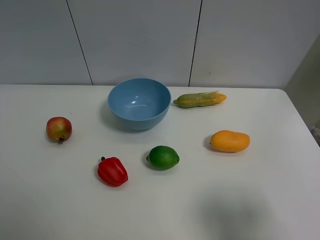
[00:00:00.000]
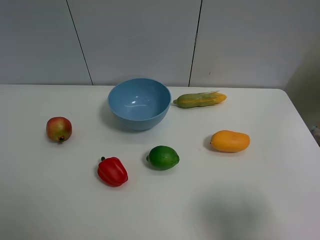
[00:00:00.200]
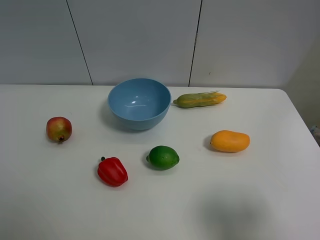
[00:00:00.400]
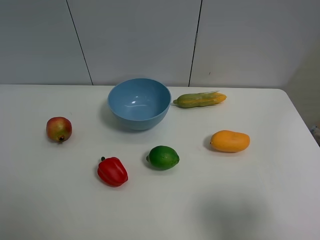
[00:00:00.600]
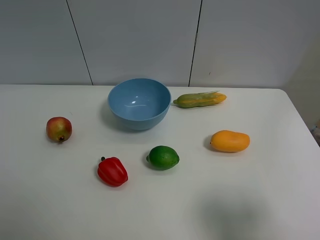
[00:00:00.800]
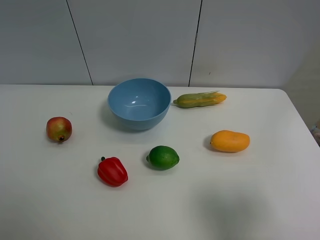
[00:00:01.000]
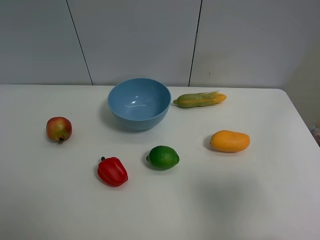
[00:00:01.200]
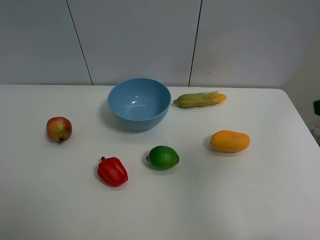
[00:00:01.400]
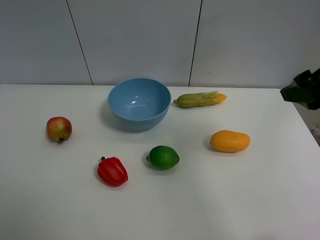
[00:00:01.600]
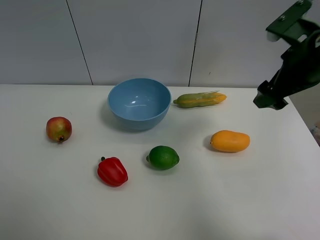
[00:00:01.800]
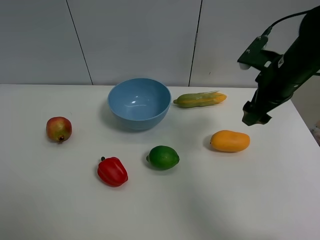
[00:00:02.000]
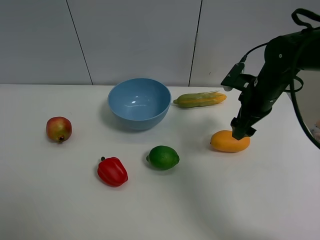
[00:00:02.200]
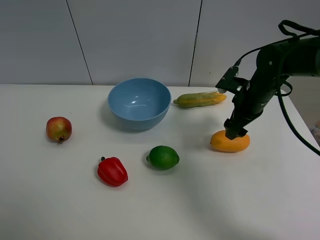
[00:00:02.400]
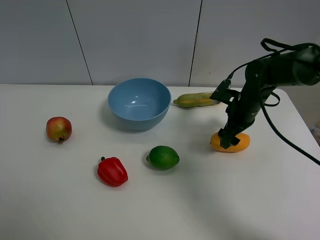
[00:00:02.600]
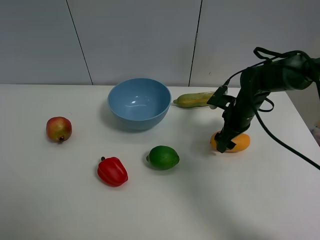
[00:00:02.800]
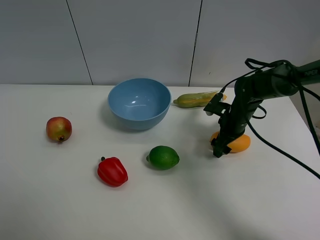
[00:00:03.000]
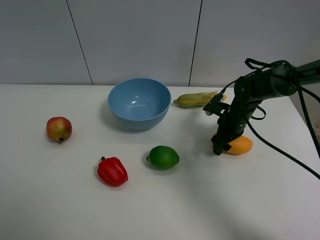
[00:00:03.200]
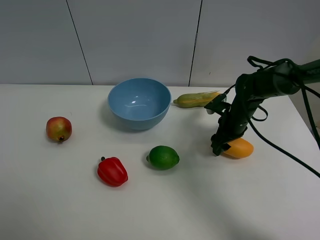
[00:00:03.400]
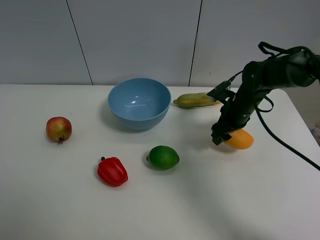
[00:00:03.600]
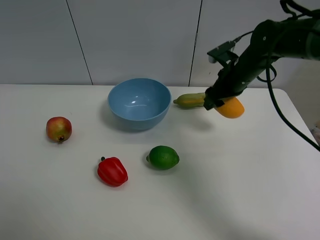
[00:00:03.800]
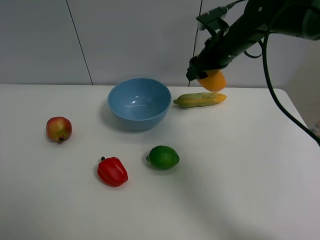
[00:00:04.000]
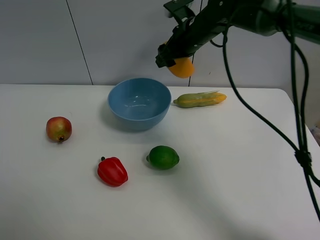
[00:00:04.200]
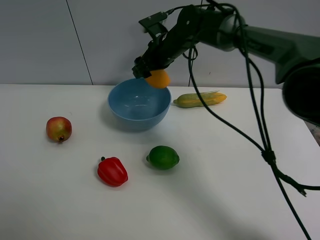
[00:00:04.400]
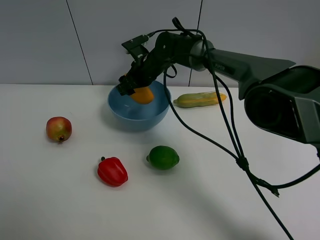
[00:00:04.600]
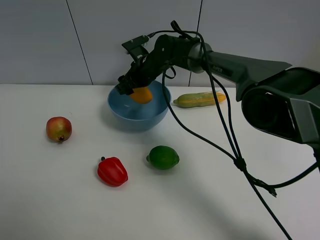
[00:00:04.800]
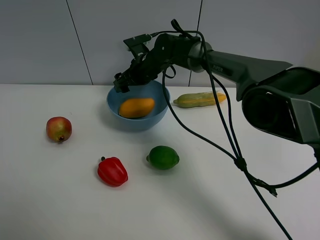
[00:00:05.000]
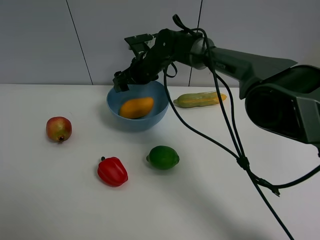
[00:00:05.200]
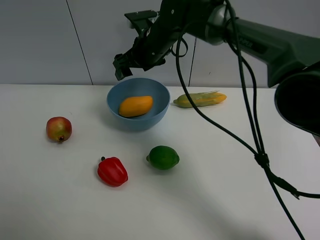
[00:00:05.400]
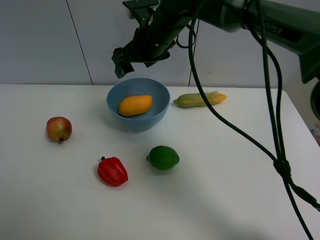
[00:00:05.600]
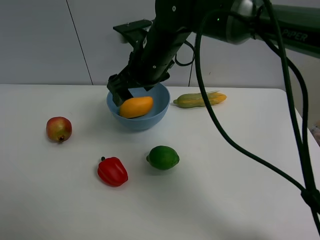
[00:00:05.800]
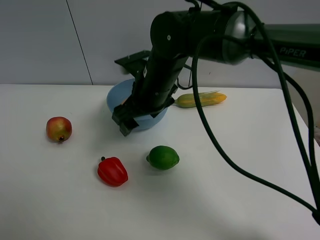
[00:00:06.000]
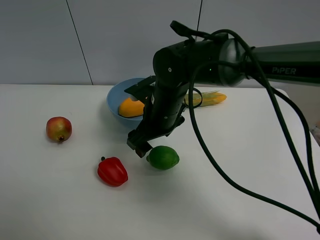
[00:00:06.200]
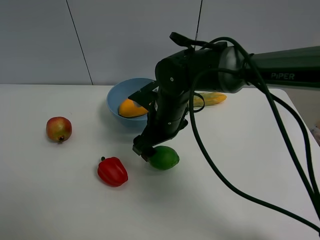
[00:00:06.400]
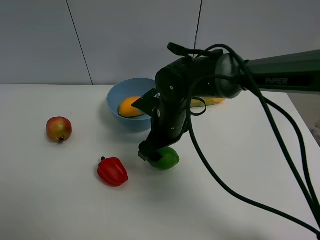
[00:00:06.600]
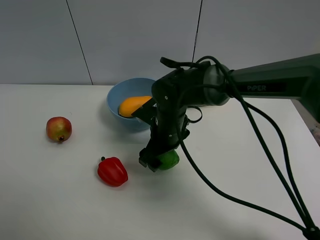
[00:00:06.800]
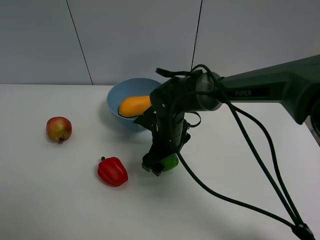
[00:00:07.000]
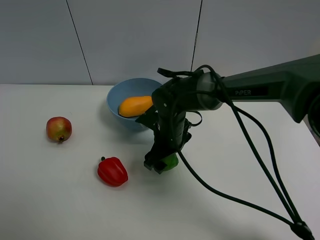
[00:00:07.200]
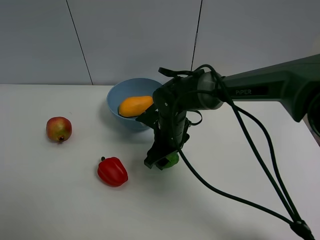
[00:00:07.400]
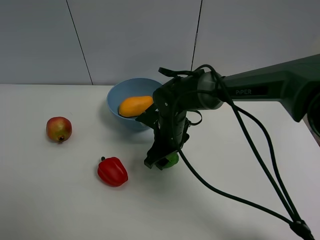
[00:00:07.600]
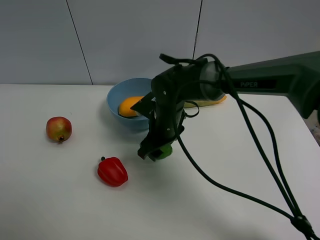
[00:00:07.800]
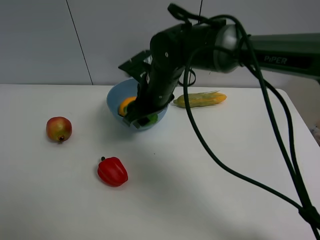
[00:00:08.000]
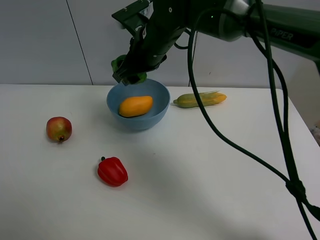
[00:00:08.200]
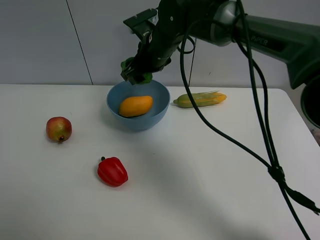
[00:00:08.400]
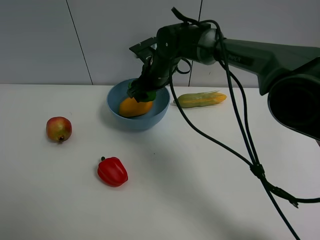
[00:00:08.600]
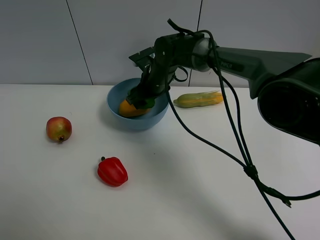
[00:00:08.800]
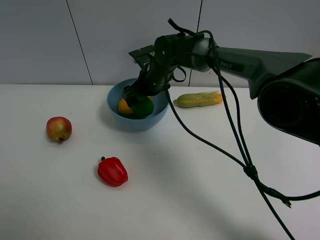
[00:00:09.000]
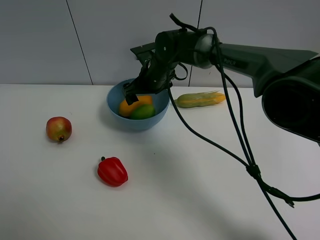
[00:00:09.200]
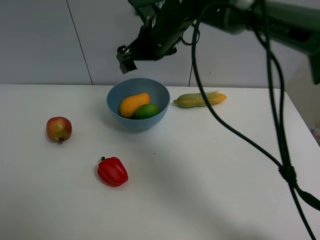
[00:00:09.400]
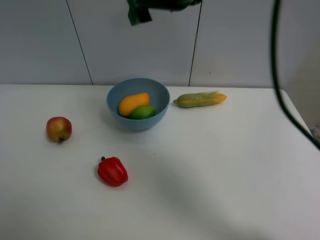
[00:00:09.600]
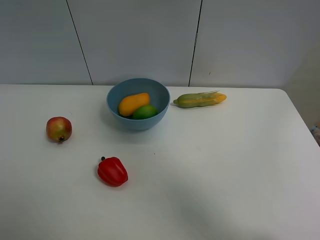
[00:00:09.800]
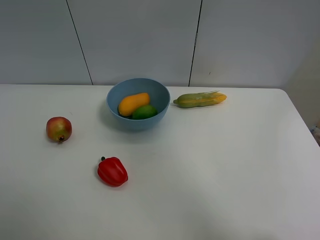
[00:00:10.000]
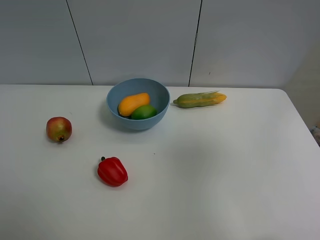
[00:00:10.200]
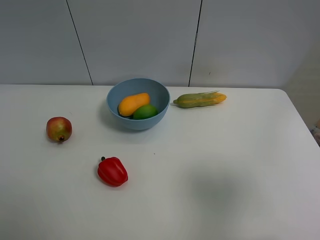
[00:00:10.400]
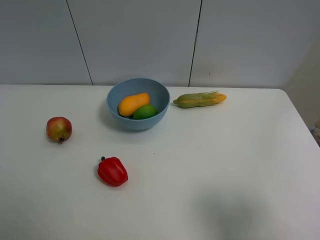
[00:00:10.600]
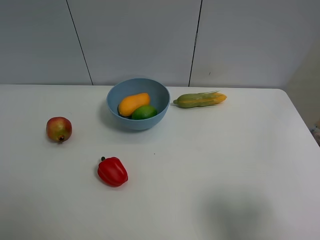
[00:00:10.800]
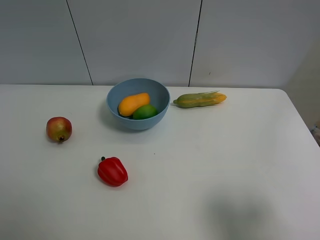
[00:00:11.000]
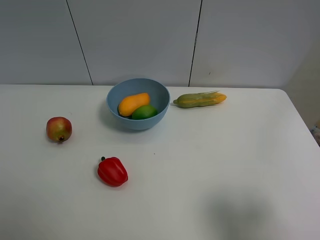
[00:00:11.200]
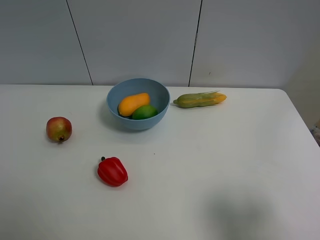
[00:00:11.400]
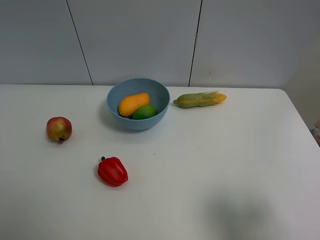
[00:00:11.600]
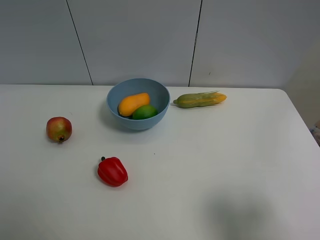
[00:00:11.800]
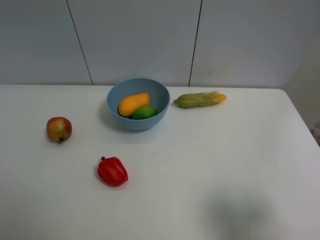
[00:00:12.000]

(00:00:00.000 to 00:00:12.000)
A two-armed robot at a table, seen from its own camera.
Task of the whole recording: Put the three fruits on the table into a bowl.
Step, 00:00:00.000 - 00:00:03.200: Grasp the mango with right gripper.
Step, 00:00:03.400 - 00:00:04.800: Place the mango in the blue bowl with right gripper.
Step, 00:00:05.000 - 00:00:07.400: Grasp the green lemon with right gripper.
Step, 00:00:07.600 - 00:00:09.200: Place the green lemon in the blue bowl with right gripper.
00:00:00.000 - 00:00:01.600: The right gripper is displaced forward and upward by some 20 cm.
00:00:01.600 - 00:00:03.000: The right gripper shifts approximately 30 cm downward and forward.
00:00:03.000 - 00:00:04.400: The right gripper shifts about 25 cm to the left, upward and forward, and closes up.
00:00:04.400 - 00:00:06.000: The right gripper travels backward by approximately 15 cm, and opens.
00:00:06.000 - 00:00:07.600: The right gripper is displaced downward by about 10 cm, and closes.
00:00:07.600 - 00:00:09.000: The right gripper heads forward and upward, covering approximately 15 cm, and opens.
00:00:09.000 - 00:00:10.400: The right gripper goes approximately 50 cm backward, to the right and upward.
00:00:10.400 - 00:00:12.000: The right gripper travels downward by about 10 cm.

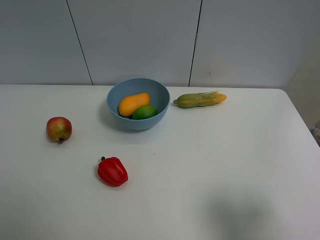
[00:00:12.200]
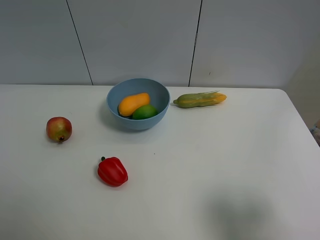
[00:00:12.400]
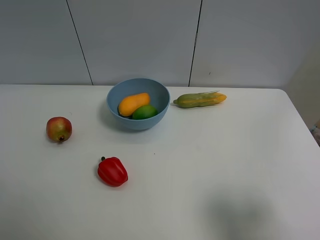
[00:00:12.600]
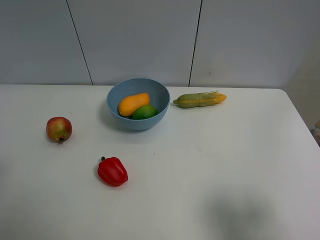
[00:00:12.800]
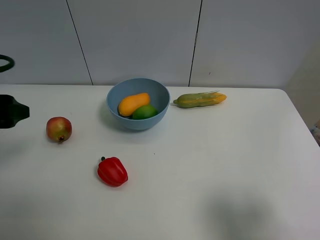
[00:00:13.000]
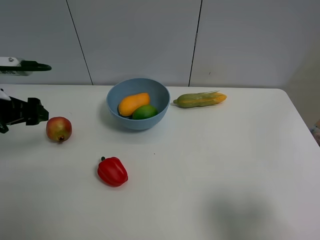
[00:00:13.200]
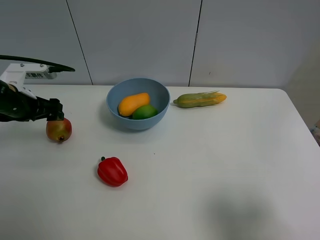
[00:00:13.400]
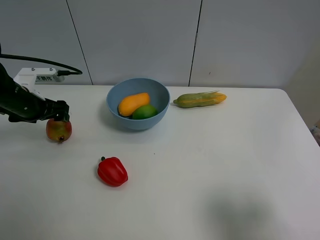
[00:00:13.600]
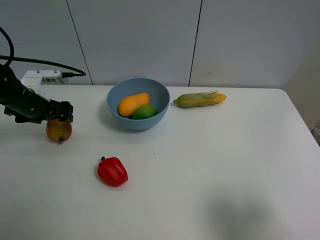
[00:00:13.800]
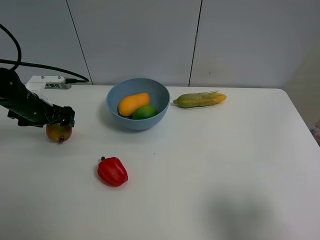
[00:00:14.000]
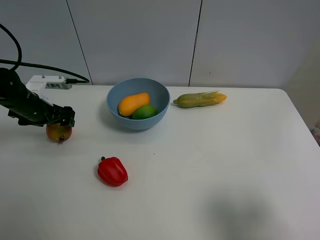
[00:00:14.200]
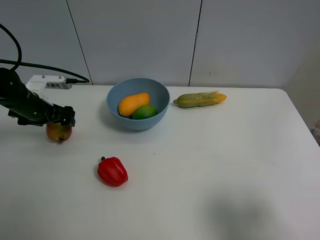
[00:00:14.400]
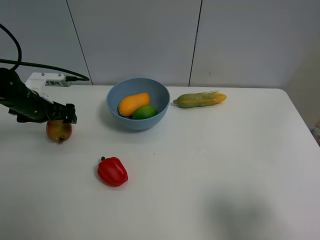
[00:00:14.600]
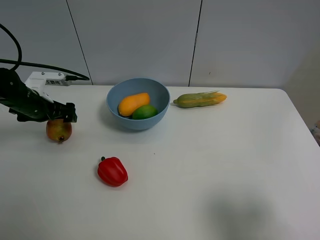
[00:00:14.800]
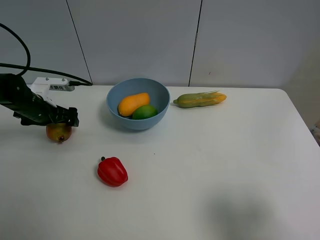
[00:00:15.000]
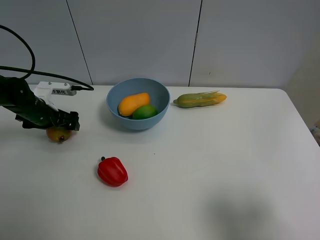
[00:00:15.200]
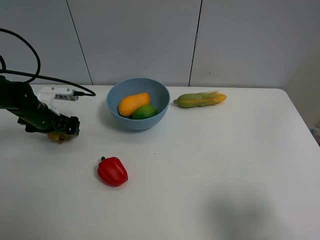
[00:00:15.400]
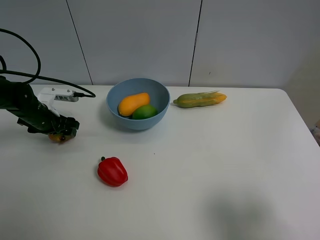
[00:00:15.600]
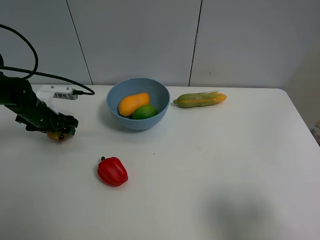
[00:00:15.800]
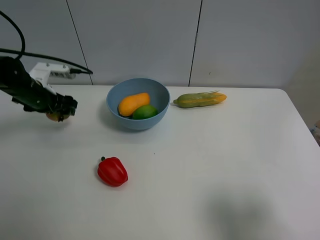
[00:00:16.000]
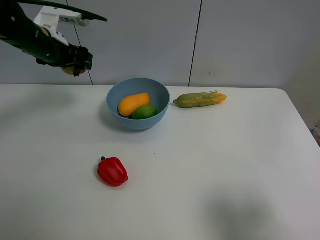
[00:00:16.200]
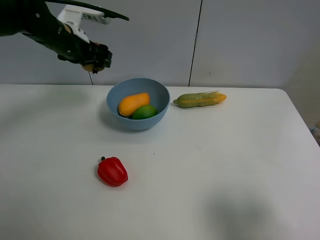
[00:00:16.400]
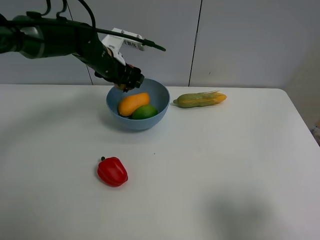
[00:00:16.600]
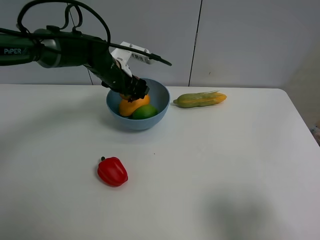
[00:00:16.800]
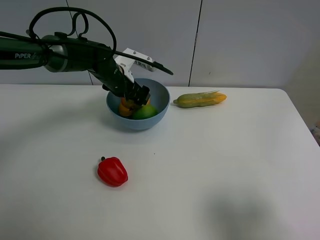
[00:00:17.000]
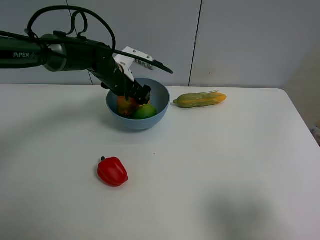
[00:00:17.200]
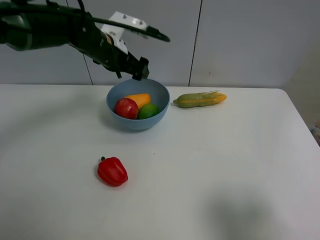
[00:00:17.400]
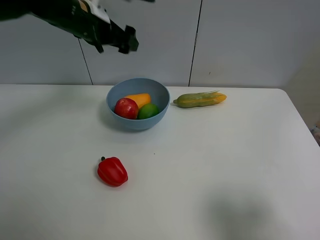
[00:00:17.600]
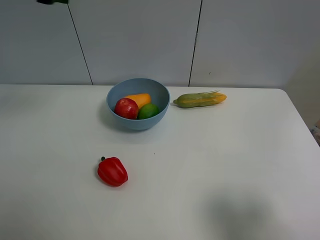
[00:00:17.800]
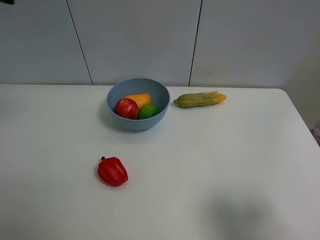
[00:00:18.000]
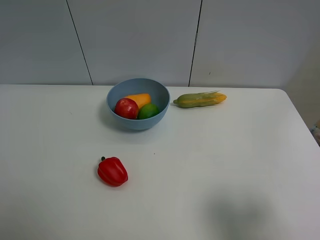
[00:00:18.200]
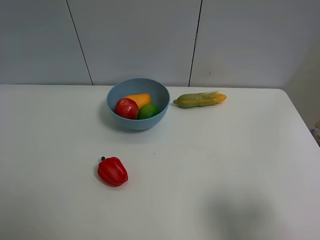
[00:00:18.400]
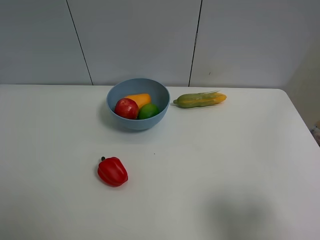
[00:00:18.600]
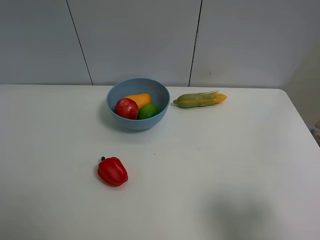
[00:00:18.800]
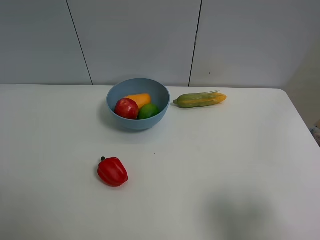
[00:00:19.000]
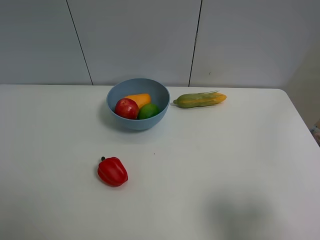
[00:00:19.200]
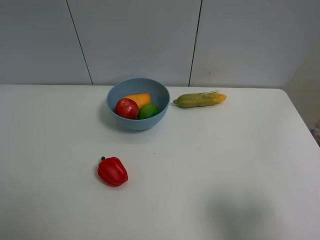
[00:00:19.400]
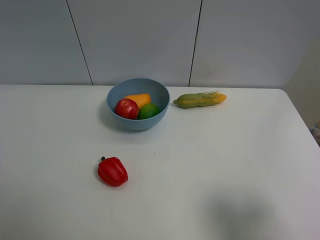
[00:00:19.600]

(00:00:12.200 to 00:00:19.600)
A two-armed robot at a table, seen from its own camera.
Task of the whole recording: Put the three fruits on the table into a bowl.
Step, 00:00:12.200 - 00:00:15.600: Grasp the pomegranate with left gripper.
Step, 00:00:15.800 - 00:00:17.200: Place the pomegranate in the blue bowl with left gripper.
00:00:12.200 - 00:00:13.600: The left gripper goes about 35 cm forward.
00:00:13.600 - 00:00:15.200: The left gripper moves downward, roughly 5 cm, and opens.
00:00:15.200 - 00:00:16.600: The left gripper heads to the right and upward, covering some 20 cm, and closes up.
00:00:16.600 - 00:00:18.200: The left gripper heads backward, upward and to the left, covering some 40 cm, and opens up.
